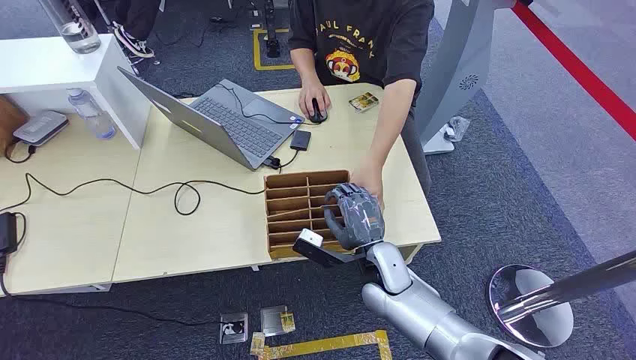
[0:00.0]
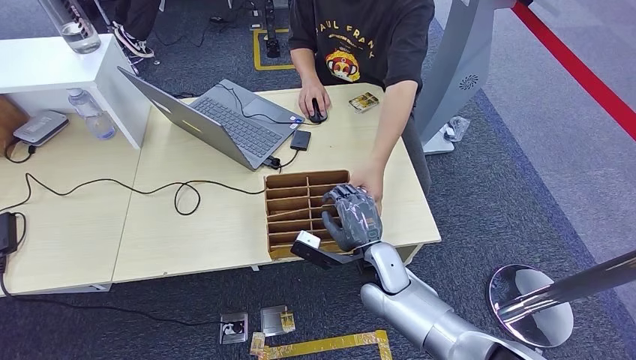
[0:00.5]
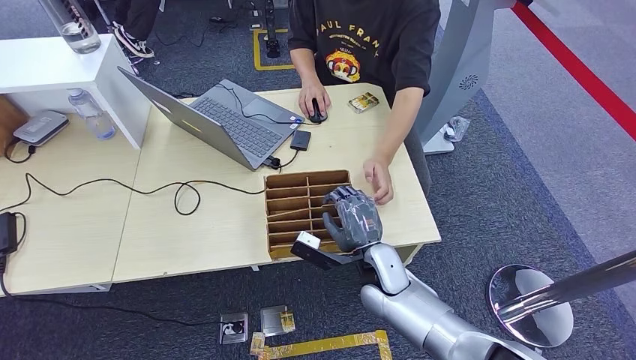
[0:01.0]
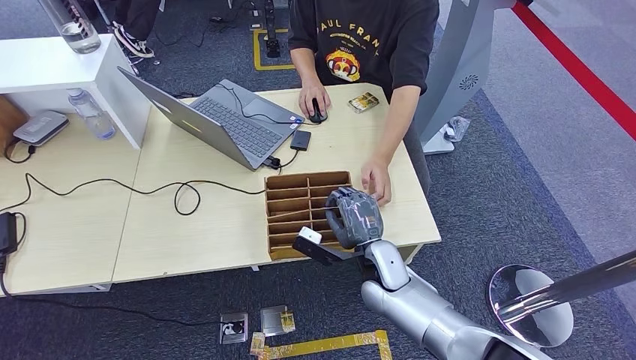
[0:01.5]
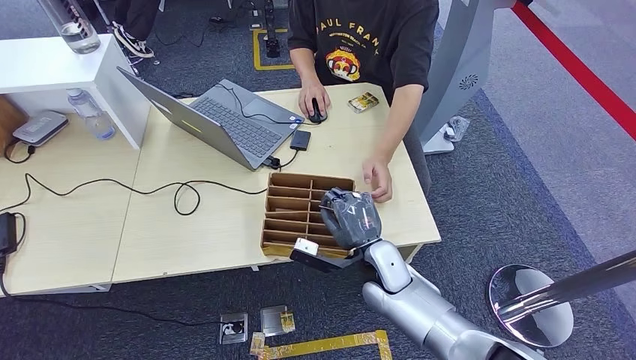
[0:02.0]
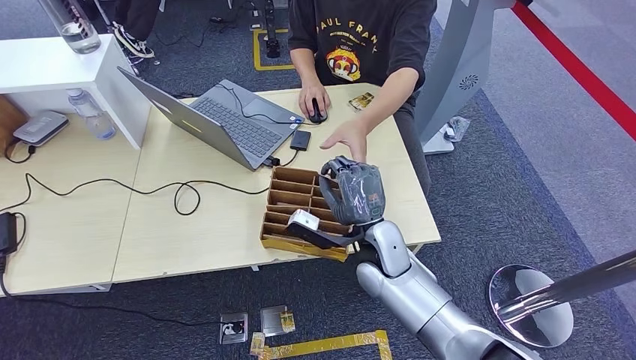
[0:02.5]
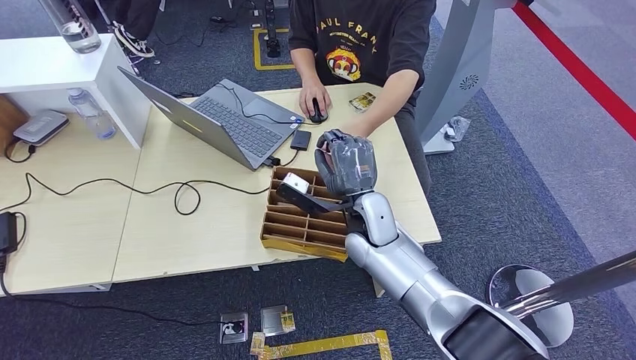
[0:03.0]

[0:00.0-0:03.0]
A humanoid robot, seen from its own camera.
Task of the whole recording: Pick up the card and hand it over to the target person.
Step, 0:00.0 to 0:02.0: Pick up the key card from the card box.
Step, 0:02.5 to 0:03.0: Hand the key card to the target.
0:01.5 to 0:03.0: The right hand heads upward and forward, covering approximately 10 cm.
